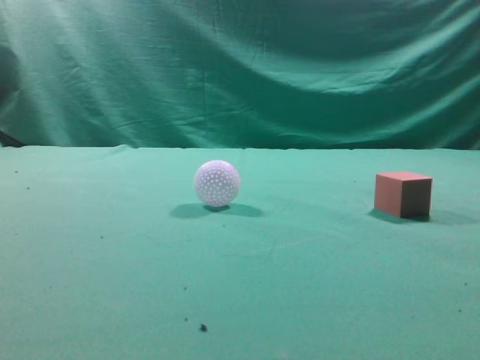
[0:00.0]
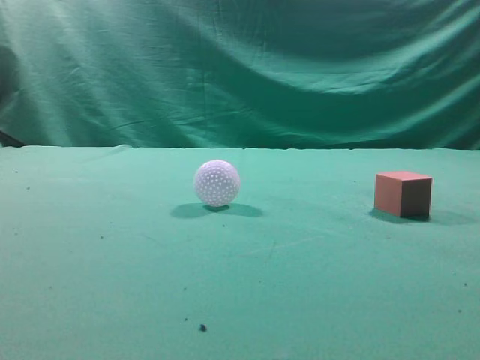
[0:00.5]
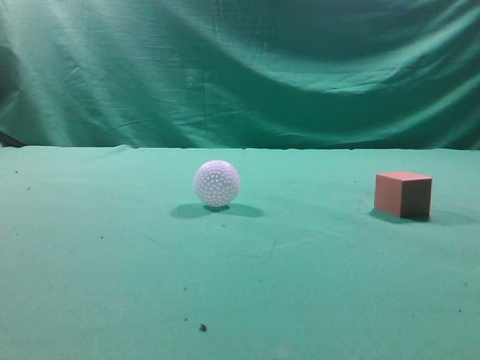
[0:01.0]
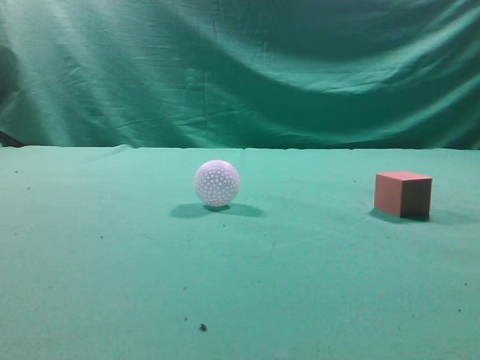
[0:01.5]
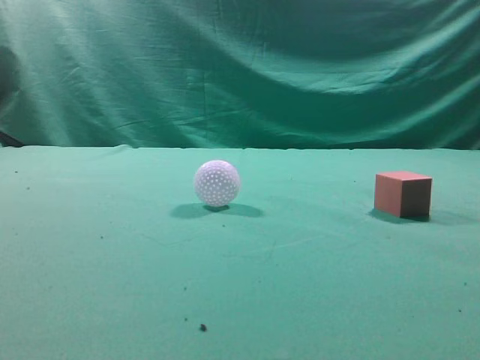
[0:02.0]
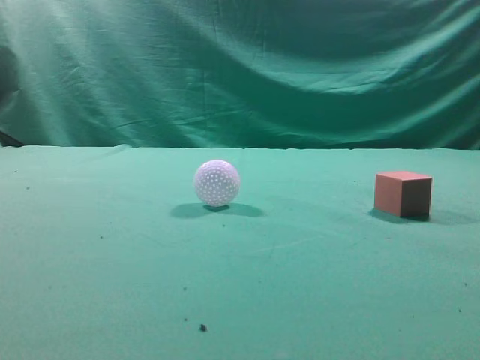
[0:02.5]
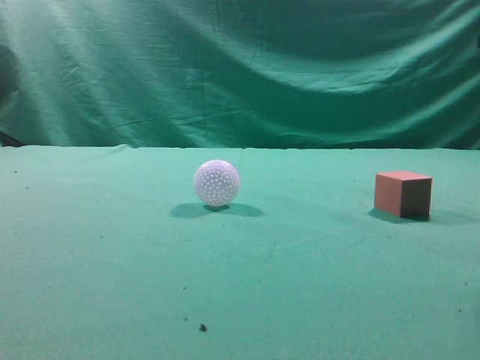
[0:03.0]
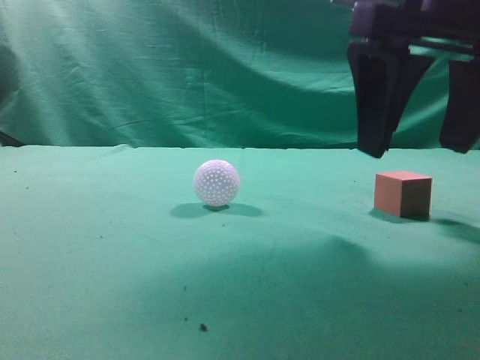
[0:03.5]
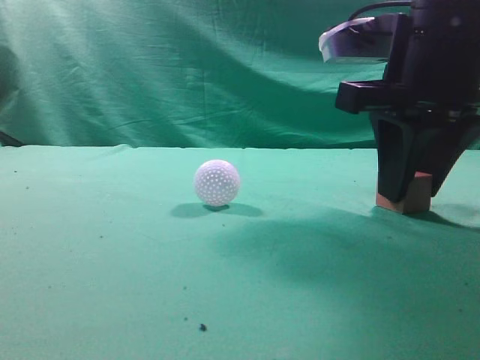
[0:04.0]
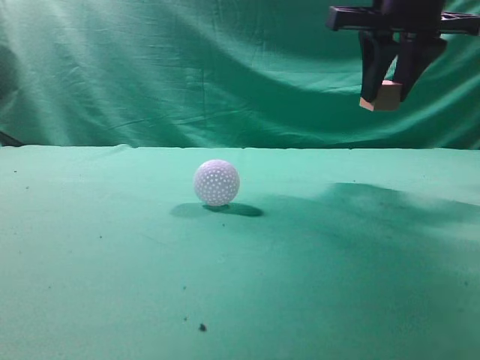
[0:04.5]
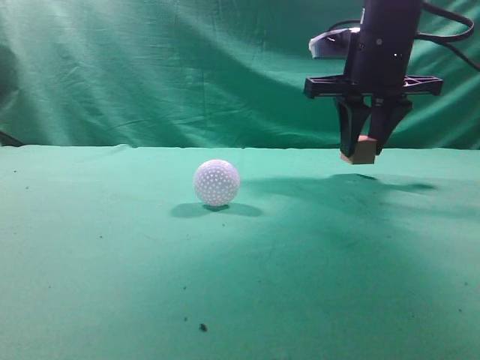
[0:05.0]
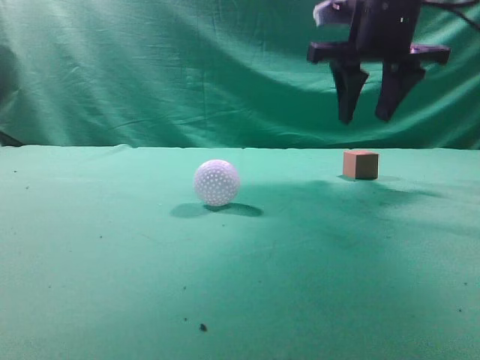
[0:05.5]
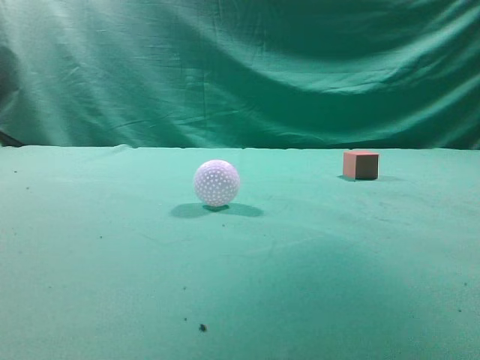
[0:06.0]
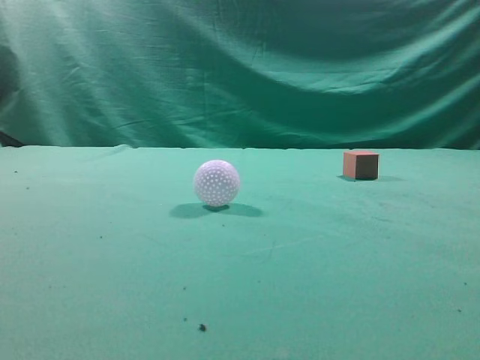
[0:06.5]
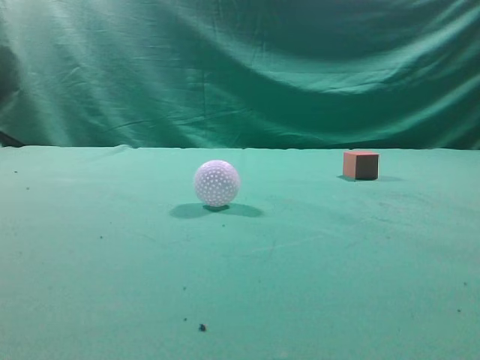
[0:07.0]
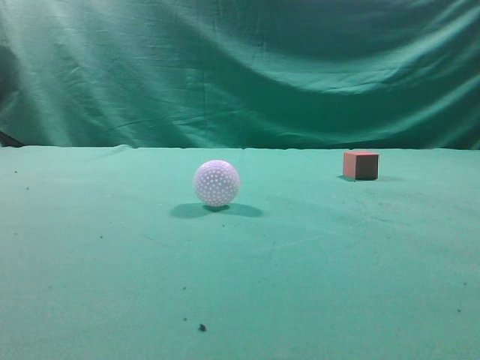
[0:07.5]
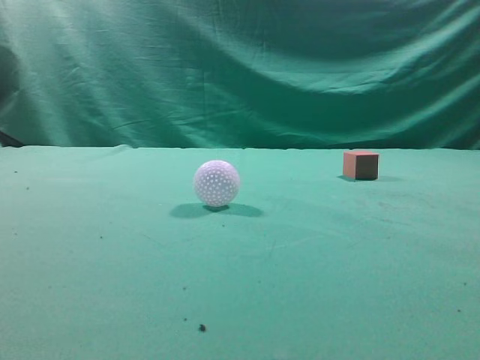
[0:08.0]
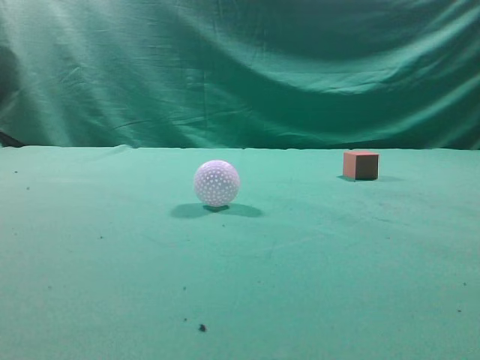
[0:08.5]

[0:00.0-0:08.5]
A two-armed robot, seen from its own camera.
Task of the whole recording: pick up the cube block and place it in another position on the table.
Step, 0:00.0 to 0:04.0: Pick up the small cube.
Step, 0:04.5 to 0:05.0: Place the small cube on the ahead of the table.
0:02.0 to 0:04.0: The right gripper goes some 30 cm forward, downward and to the left, and opens.
0:04.0 to 0:06.5: The right gripper heads upward, backward and to the right, covering about 25 cm, and closes.
